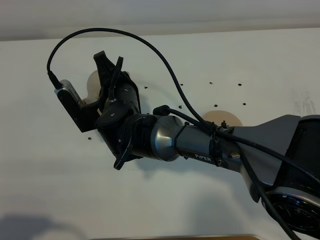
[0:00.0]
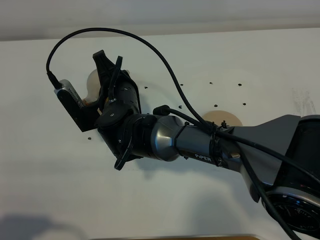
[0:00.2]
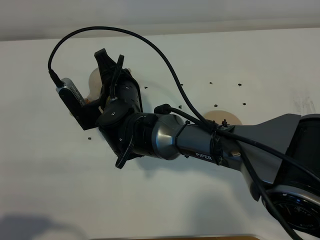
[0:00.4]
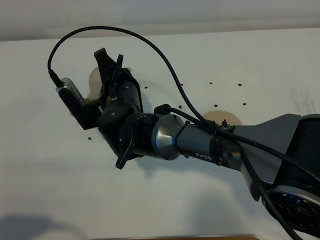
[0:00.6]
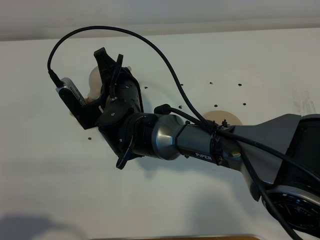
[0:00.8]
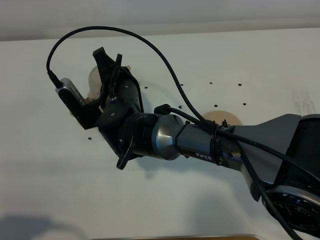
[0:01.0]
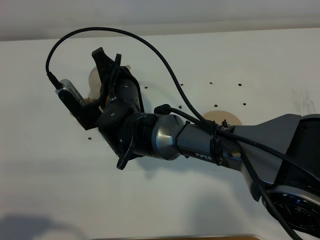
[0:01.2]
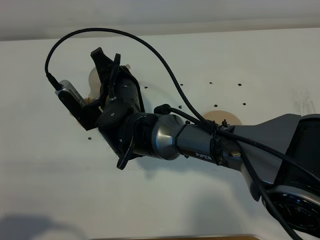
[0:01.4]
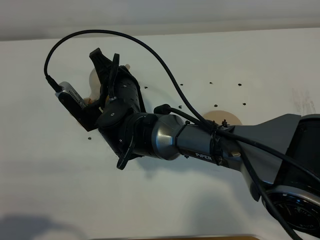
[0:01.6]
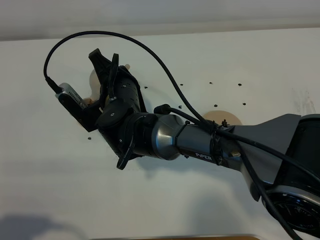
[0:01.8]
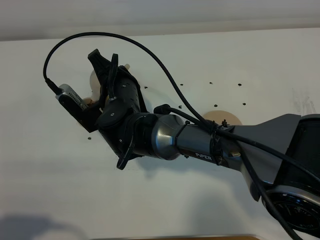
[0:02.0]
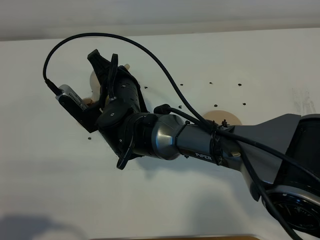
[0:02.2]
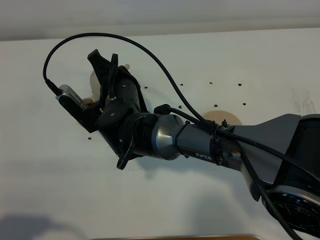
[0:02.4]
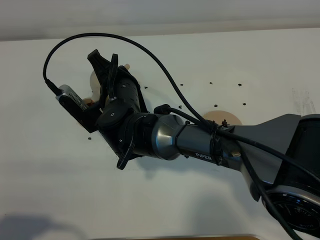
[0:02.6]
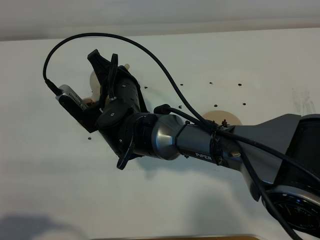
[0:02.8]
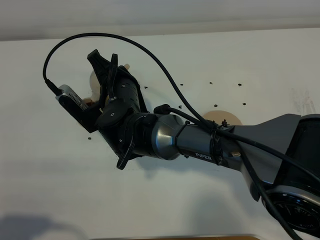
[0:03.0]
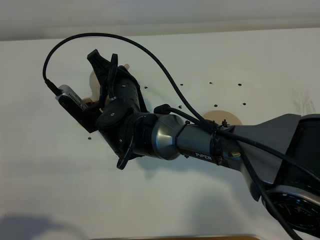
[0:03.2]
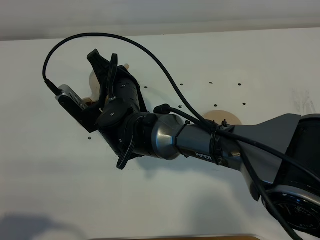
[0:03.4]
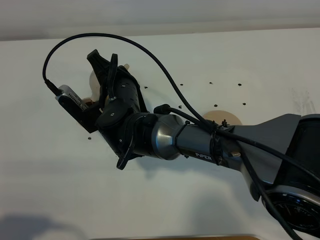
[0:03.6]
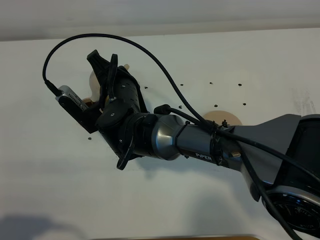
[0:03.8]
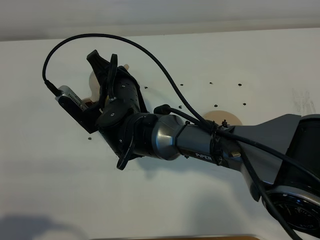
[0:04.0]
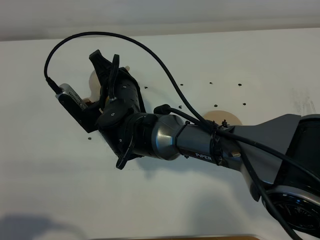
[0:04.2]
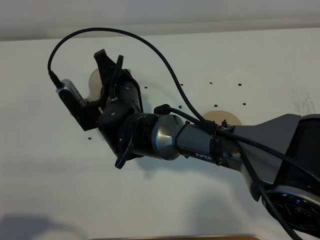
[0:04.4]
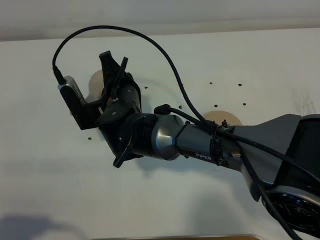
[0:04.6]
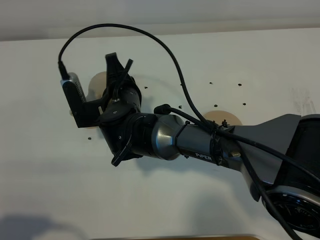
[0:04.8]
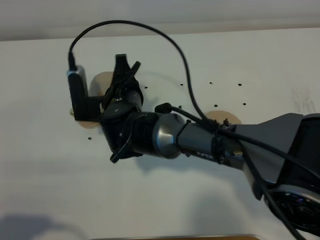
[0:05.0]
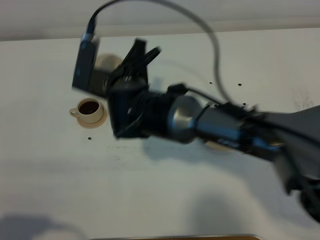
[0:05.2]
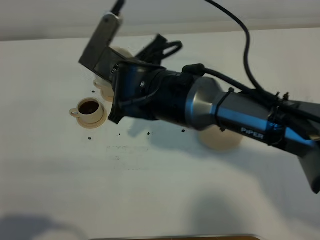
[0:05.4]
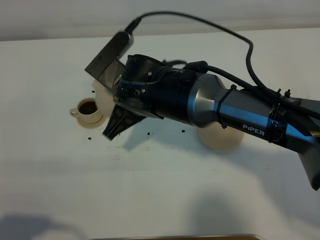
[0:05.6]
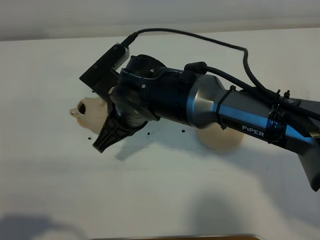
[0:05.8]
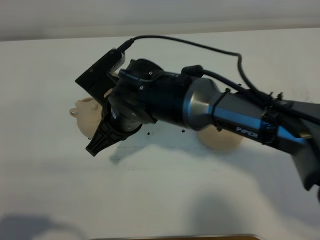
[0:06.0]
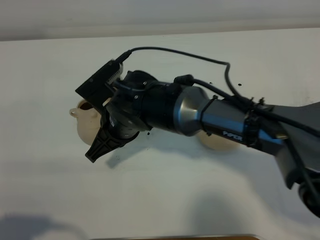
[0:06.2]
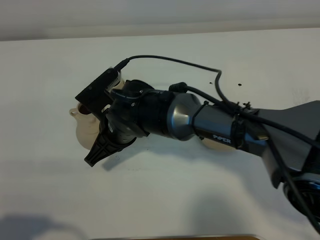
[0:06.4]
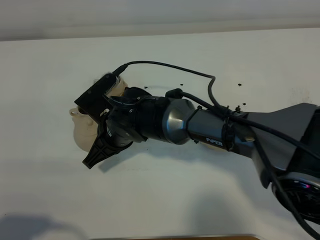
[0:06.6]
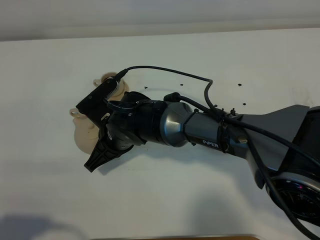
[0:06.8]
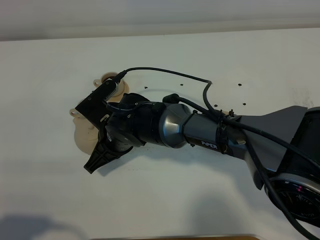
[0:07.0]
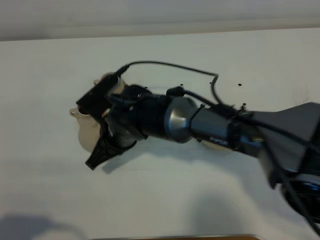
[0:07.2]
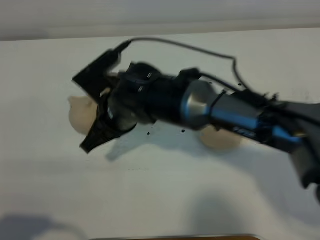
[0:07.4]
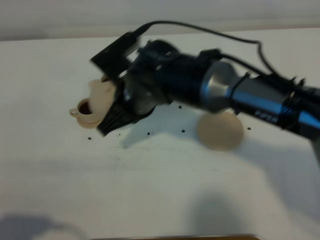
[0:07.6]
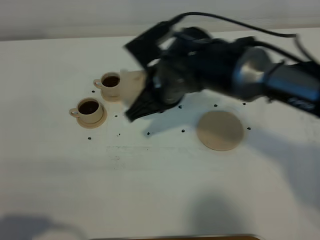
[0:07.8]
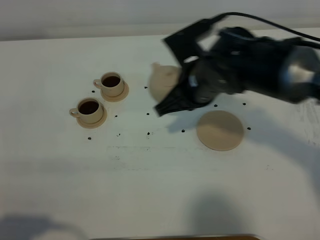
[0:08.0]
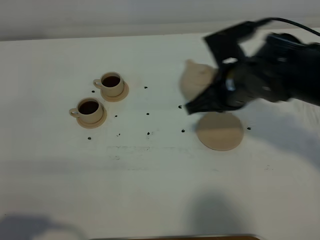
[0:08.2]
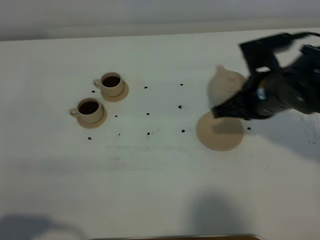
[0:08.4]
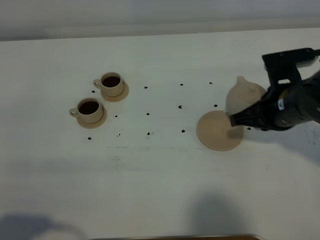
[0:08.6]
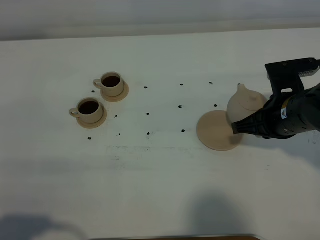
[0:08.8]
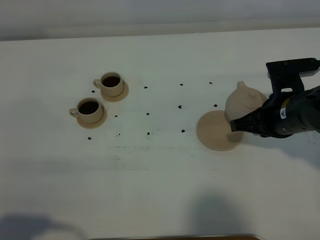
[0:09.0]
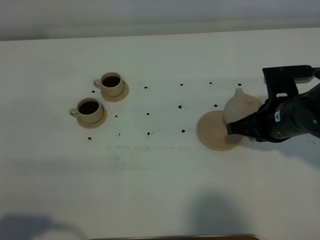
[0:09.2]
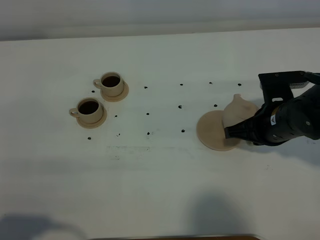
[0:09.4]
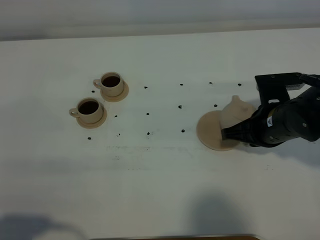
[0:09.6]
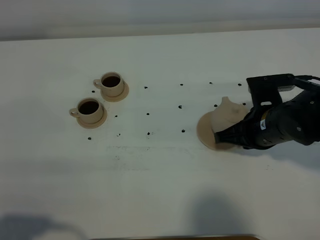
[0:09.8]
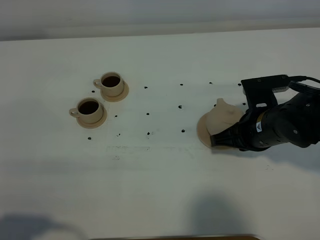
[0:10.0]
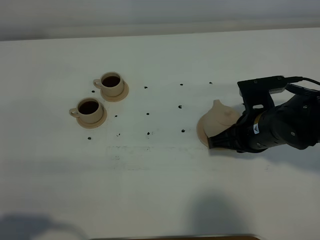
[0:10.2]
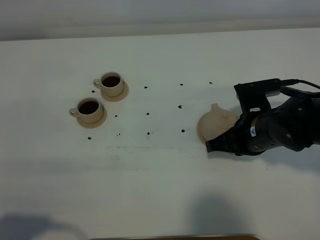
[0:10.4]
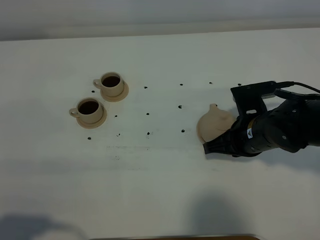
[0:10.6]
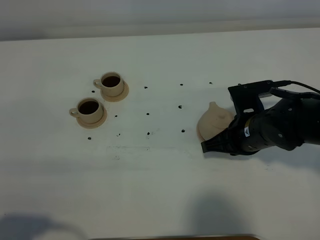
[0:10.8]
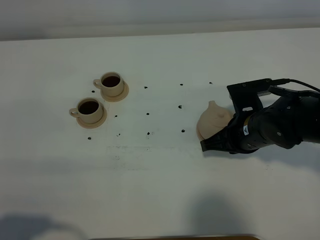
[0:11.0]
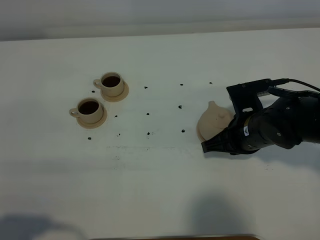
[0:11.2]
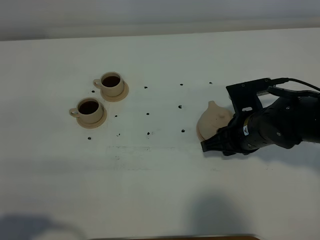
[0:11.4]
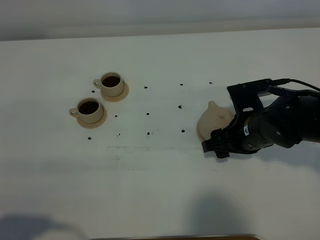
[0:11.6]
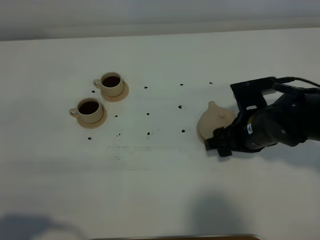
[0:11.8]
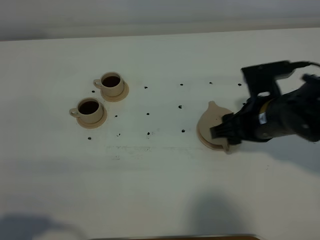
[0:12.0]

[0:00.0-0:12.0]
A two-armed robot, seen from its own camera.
Task of the whole recording: grasp the brown teapot and pour the tea into the two brown teacups one by one, put the brown teapot back in its original place.
Step, 0:00.0 to 0:04.8: Pour tea into the teacup with the right gripper.
0:00.0 to 0:01.6: The grippers stay close to where they were, moving slightly.
0:01.6 to 0:03.0: Both grippers stay about where they are.
0:03.0 to 0:04.4: The grippers move only a little.
0:04.4 to 0:06.0: The right gripper changes place by approximately 5 cm.
0:06.0 to 0:07.6: The right gripper reaches some 5 cm downward, then returns.
0:07.6 to 0:09.0: The right gripper moves to the right, about 25 cm.
0:09.0 to 0:10.4: The right gripper shifts by about 5 cm.
0:10.4 to 0:12.0: The right gripper opens up.

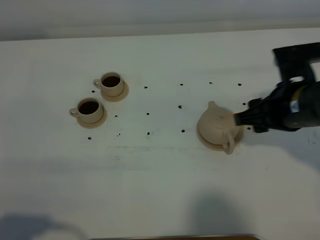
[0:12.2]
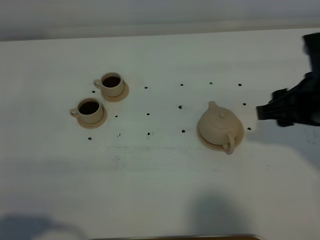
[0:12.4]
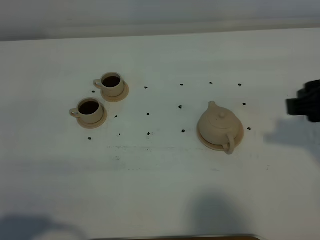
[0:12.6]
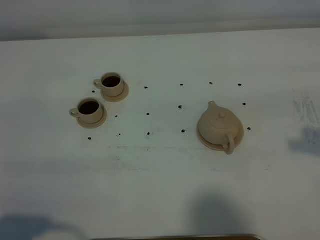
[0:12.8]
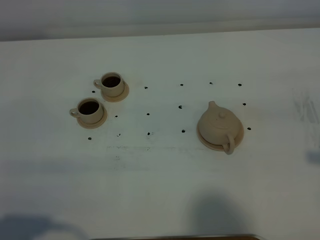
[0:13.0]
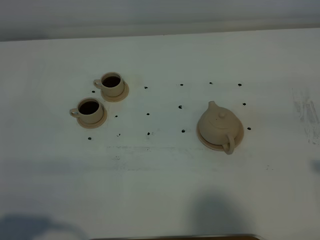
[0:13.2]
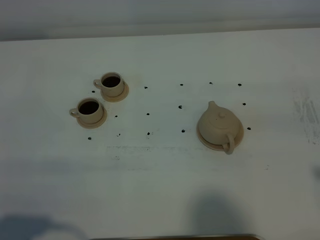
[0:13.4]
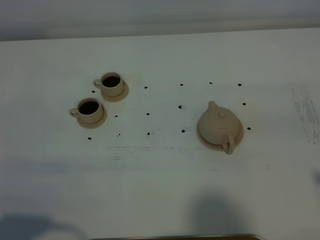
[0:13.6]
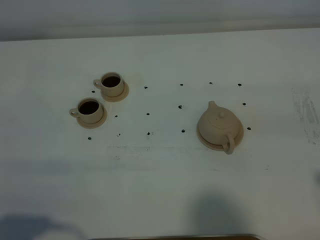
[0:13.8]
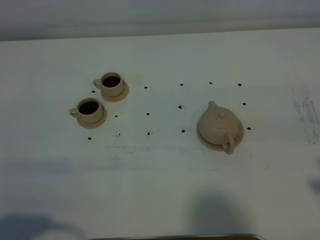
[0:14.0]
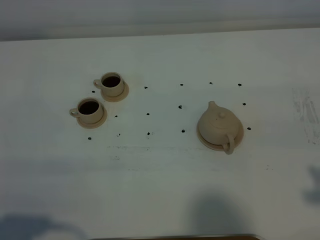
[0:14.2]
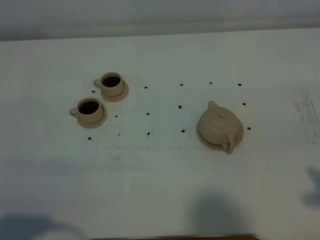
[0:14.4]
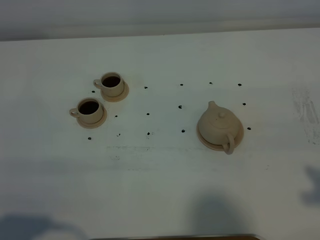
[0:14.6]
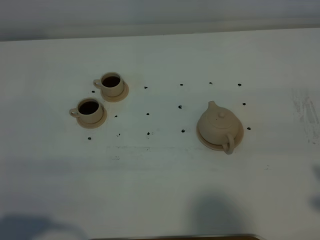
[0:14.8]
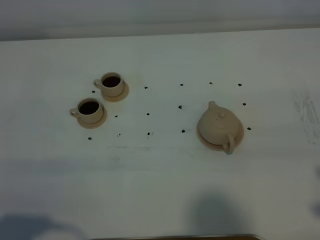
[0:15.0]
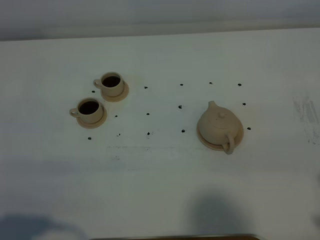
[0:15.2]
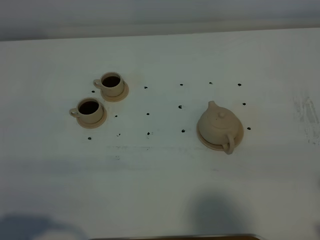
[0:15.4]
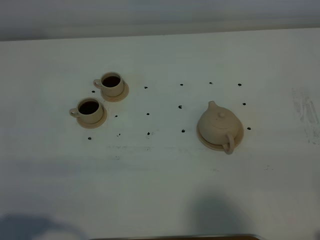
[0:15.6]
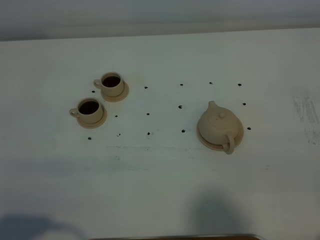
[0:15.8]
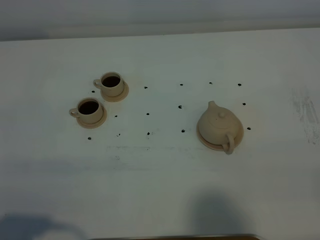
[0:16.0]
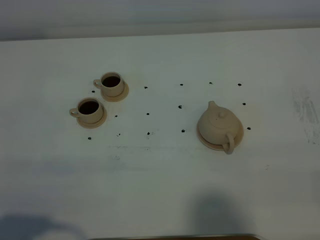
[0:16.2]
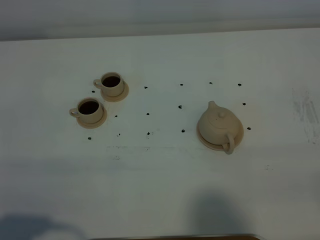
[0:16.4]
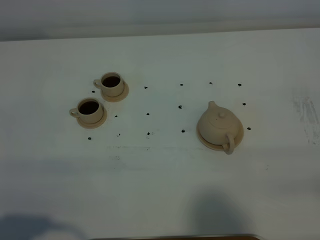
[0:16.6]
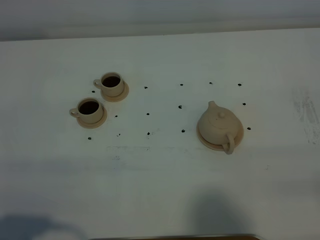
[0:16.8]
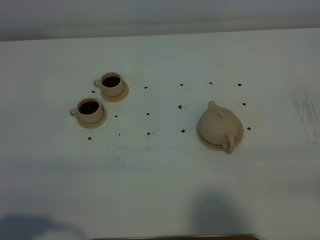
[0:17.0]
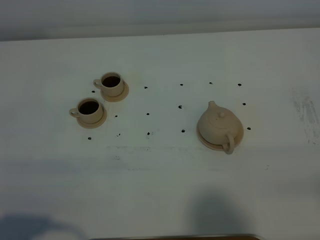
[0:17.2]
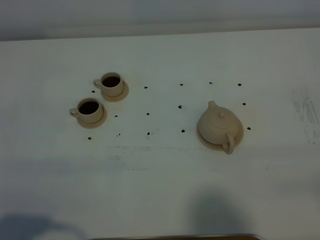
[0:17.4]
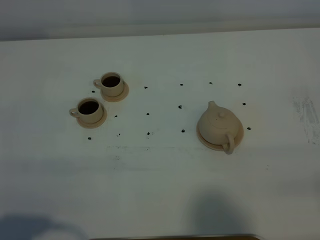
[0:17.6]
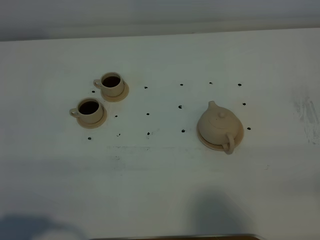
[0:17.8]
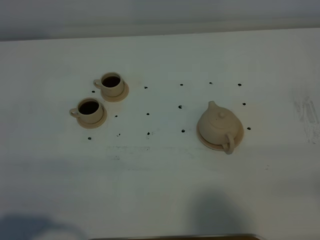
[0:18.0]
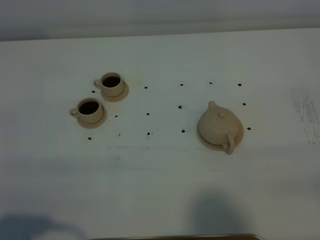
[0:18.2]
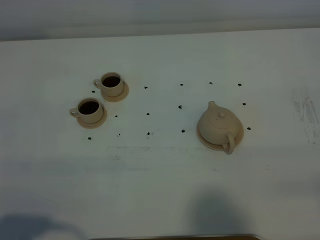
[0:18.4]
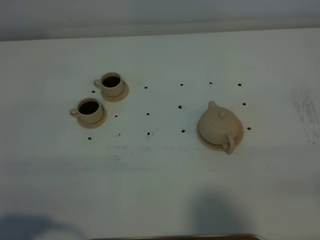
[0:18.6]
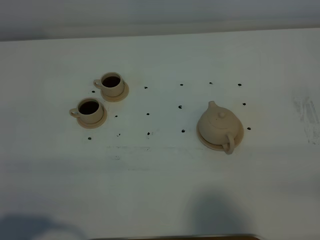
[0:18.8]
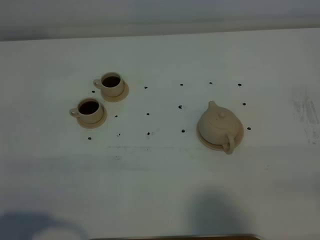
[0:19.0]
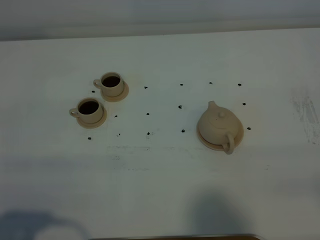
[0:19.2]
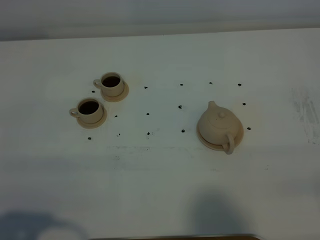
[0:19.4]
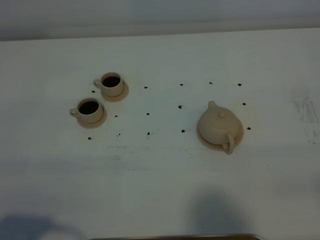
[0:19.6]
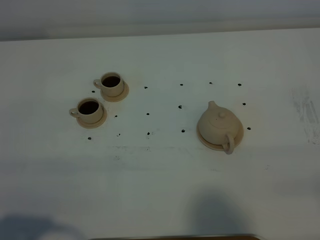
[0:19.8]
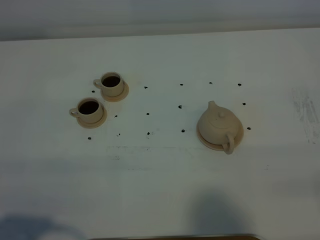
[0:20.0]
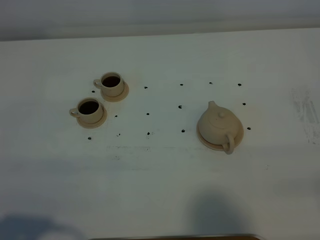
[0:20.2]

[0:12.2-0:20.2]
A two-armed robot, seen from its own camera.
Task of the whole recording: grasp the brown teapot and pour the tea into the two brown teacups one by one, put the brown teapot back in its original place.
0:12.2 to 0:13.8: The right gripper is displaced backward, upward and to the right by some 20 cm.
0:17.0 to 0:18.6: Both grippers stay put.
